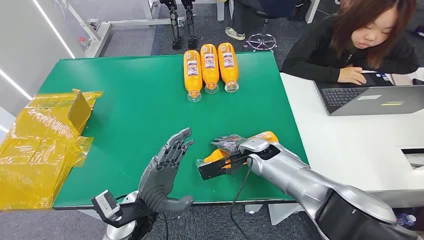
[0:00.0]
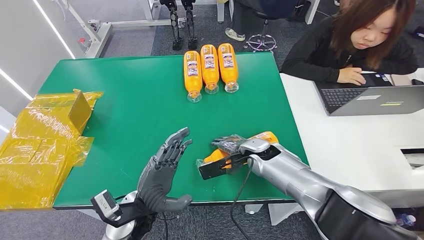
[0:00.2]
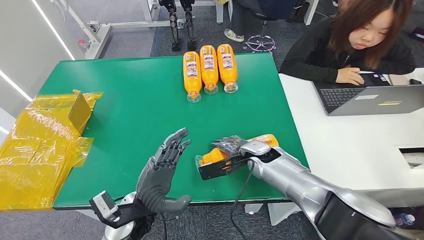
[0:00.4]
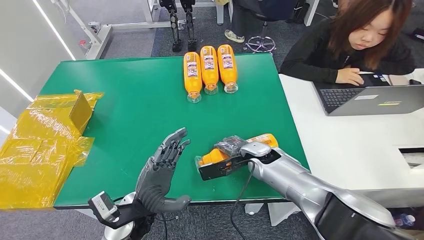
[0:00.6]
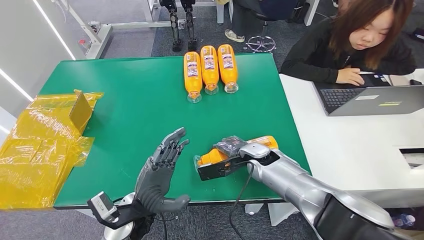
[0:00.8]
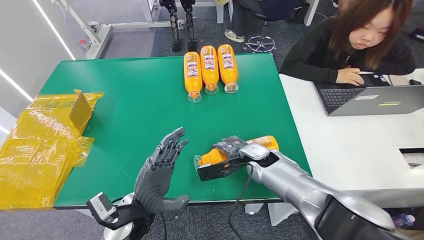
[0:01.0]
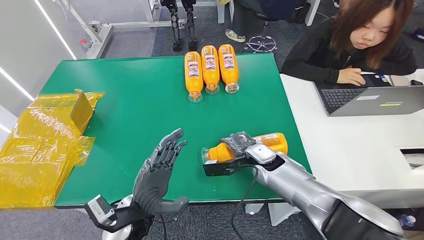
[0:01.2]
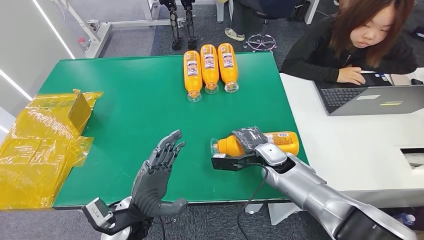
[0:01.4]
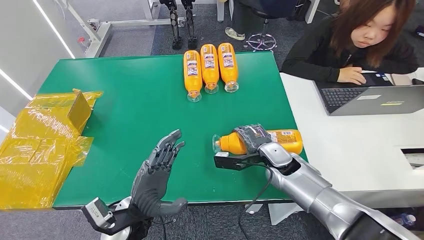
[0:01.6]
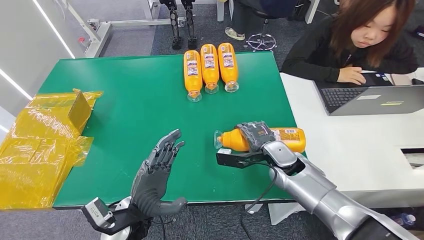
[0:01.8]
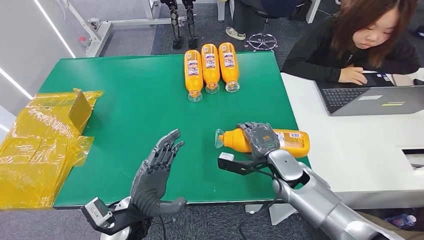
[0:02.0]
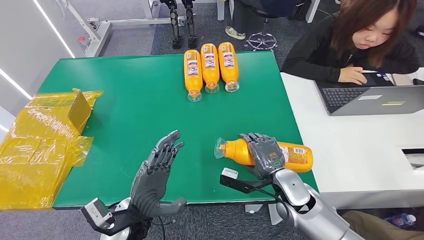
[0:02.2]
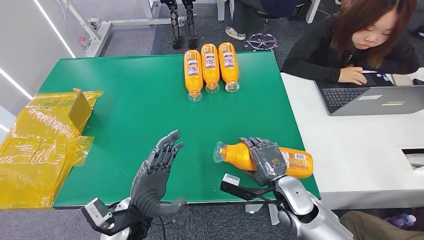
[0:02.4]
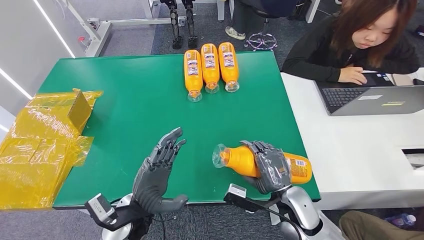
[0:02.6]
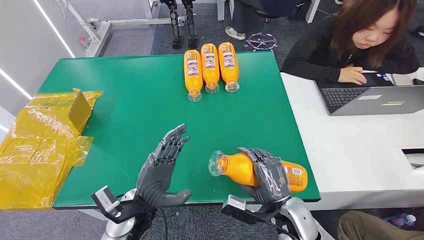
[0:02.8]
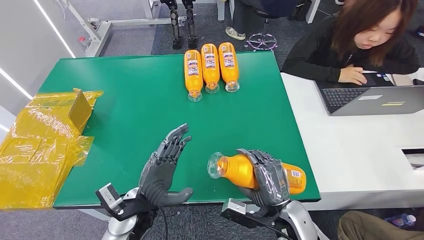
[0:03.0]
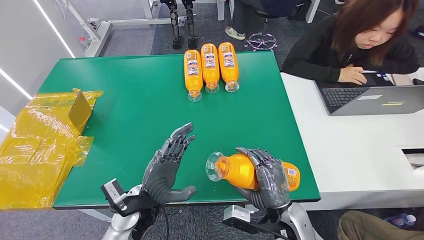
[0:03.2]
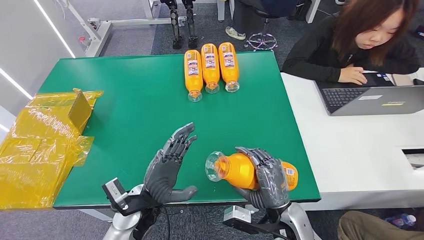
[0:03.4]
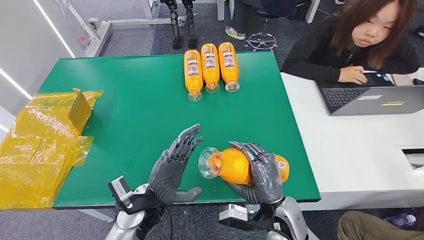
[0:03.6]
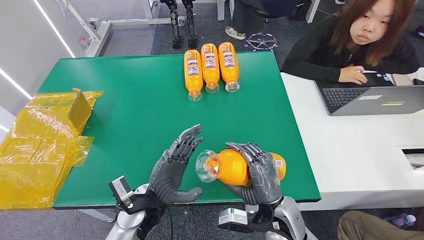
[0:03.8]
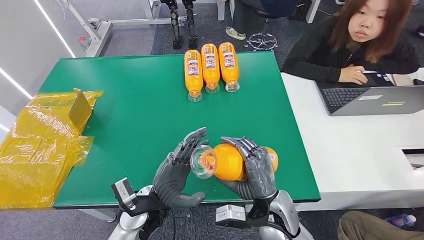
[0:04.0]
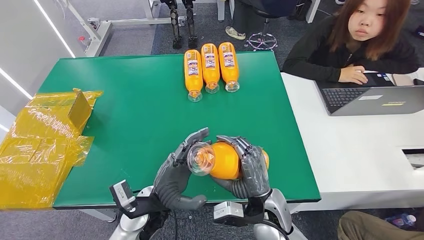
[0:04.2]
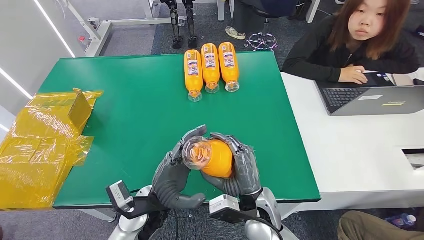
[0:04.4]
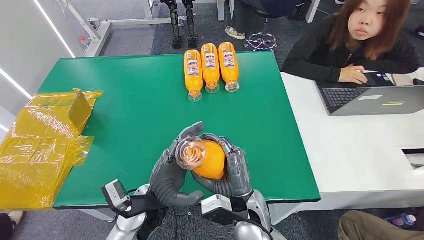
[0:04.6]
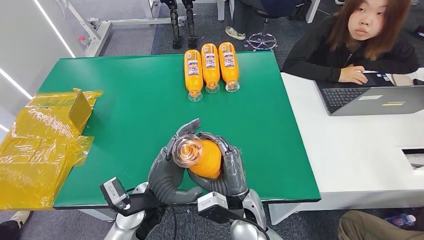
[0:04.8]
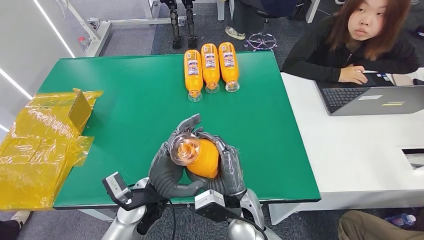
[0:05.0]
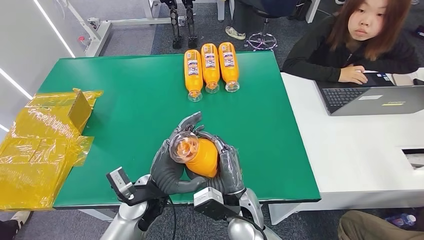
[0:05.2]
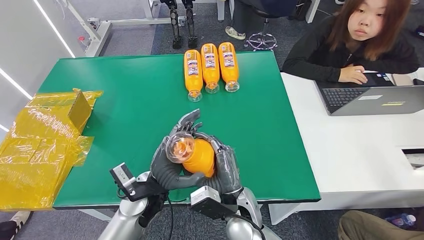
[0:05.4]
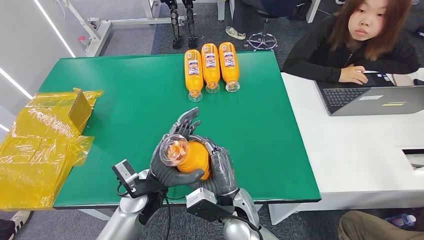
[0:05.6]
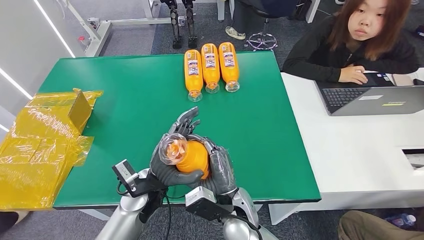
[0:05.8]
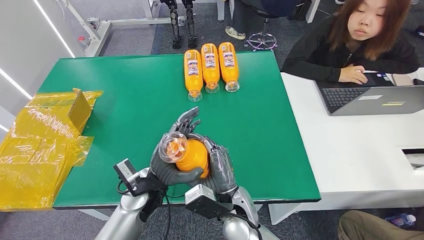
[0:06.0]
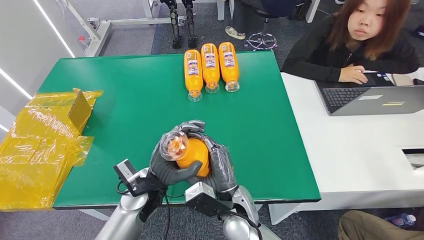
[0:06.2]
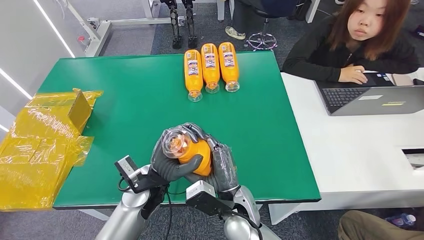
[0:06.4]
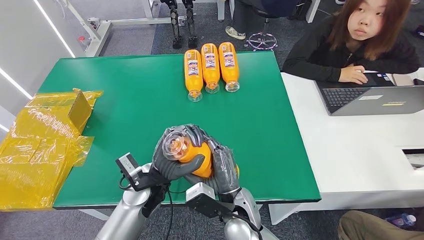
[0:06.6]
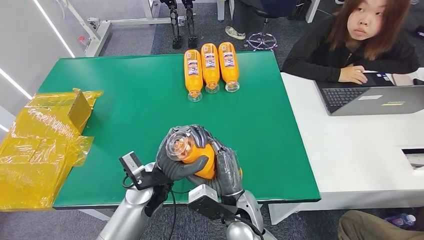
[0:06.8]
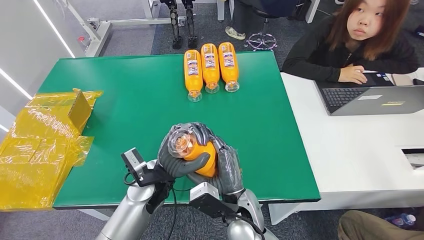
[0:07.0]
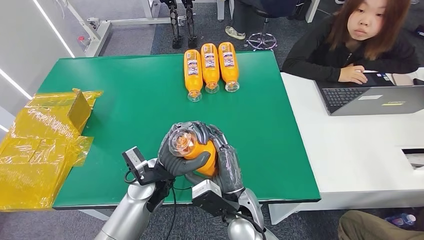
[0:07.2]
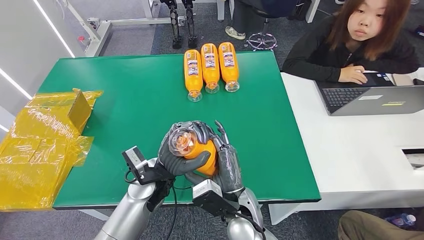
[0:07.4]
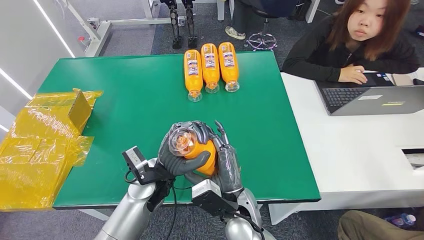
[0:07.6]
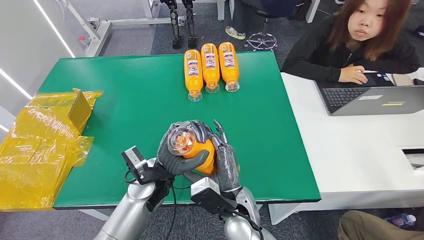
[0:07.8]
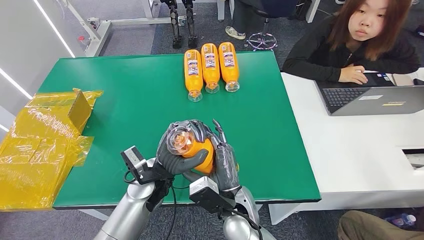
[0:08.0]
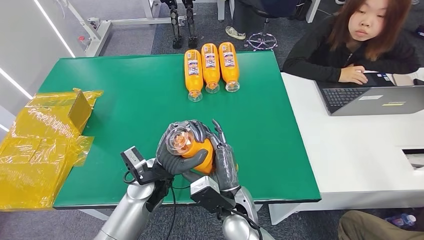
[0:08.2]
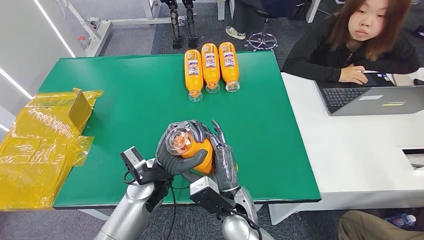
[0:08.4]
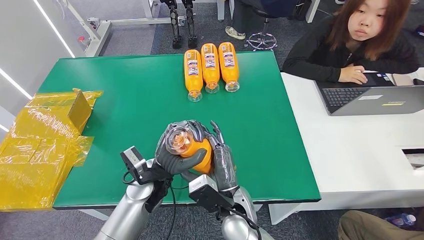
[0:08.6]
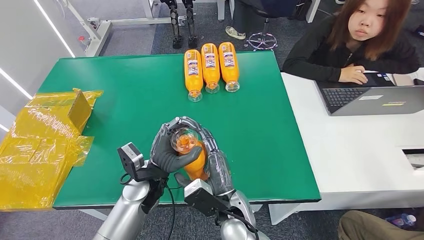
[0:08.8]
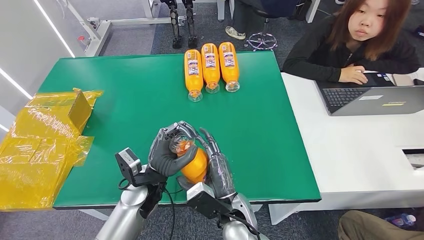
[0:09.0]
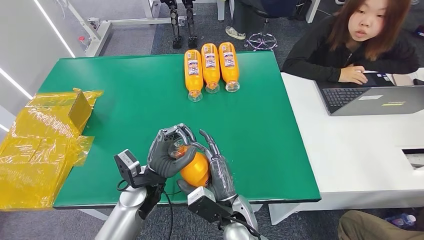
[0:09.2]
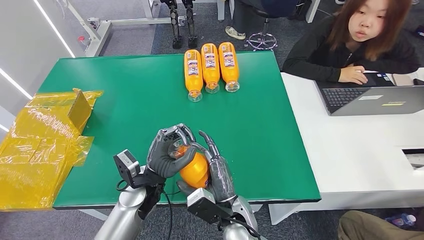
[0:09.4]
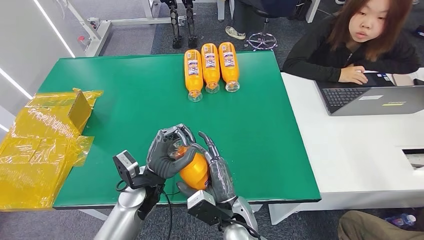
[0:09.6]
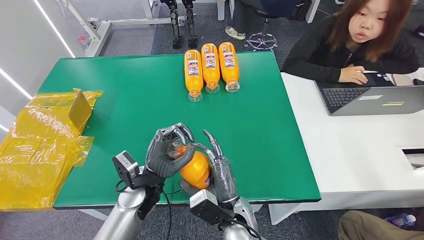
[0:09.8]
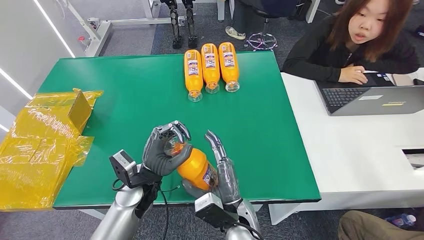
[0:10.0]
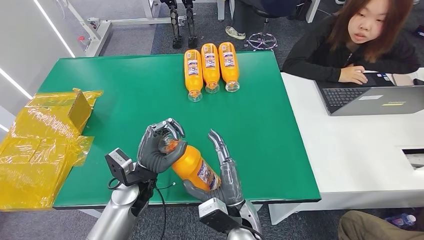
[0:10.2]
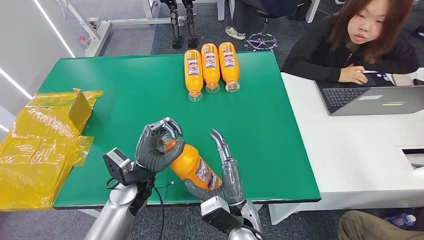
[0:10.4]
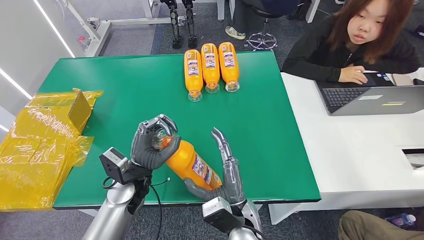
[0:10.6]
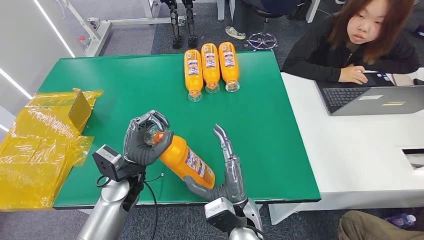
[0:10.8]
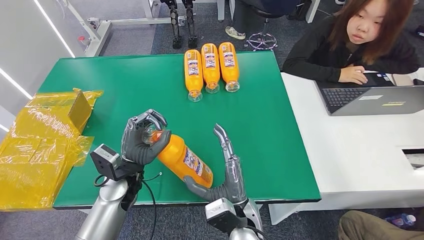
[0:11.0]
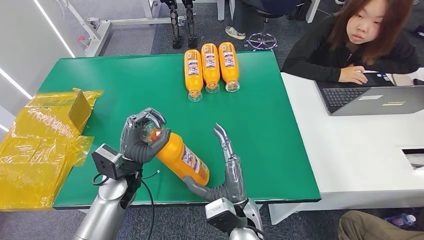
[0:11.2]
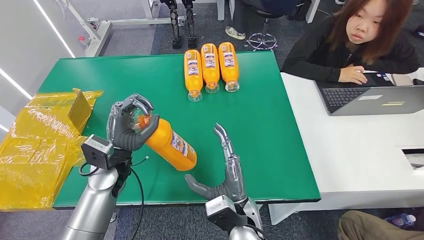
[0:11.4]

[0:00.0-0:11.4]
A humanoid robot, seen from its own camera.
Step, 0:00.0 to 0:04.6: Pick up the bottle from the table.
0:01.4 to 0:02.8: The right hand travels backward by approximately 15 cm.
0:02.8 to 0:04.2: The right hand is displaced to the left by approximately 5 cm.
0:04.2 to 0:05.6: The right hand moves to the left, about 10 cm.
0:05.6 to 0:07.2: The hands move only a little.
0:07.2 to 0:08.6: Both hands stay about where they are.
0:08.6 to 0:10.0: The hands move only a little.
0:10.0 to 0:11.4: The left hand heads to the left, covering approximately 5 cm.

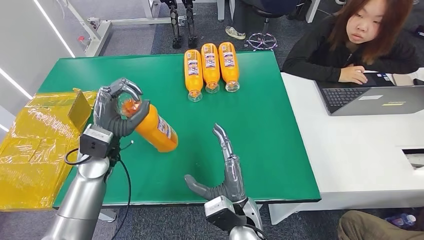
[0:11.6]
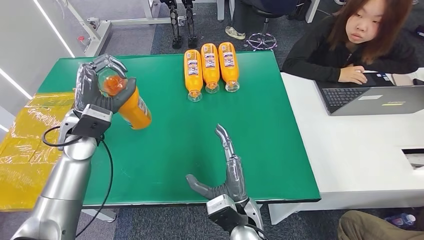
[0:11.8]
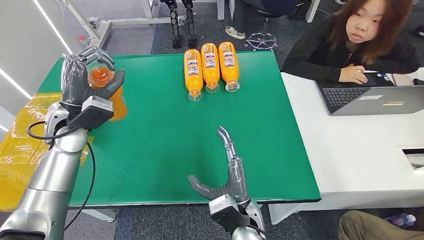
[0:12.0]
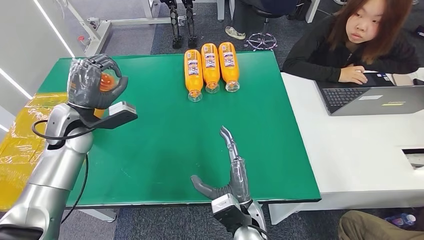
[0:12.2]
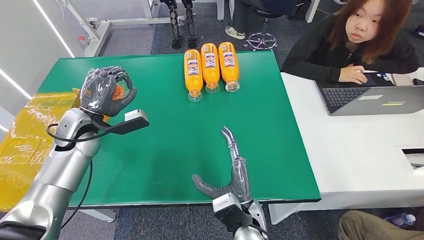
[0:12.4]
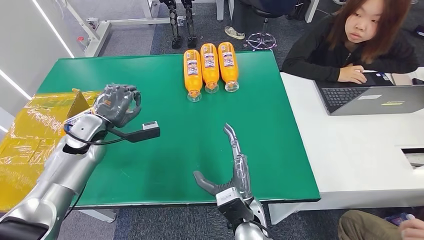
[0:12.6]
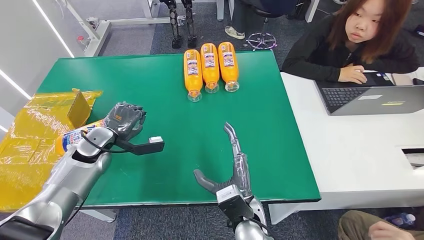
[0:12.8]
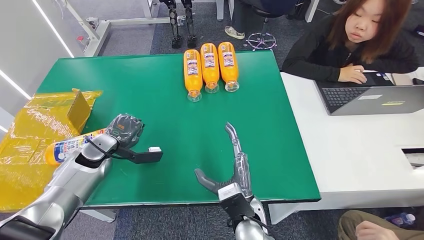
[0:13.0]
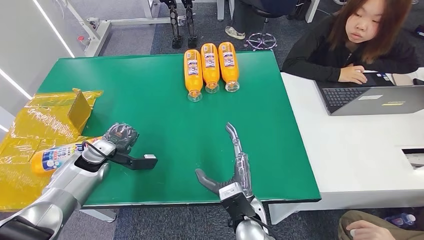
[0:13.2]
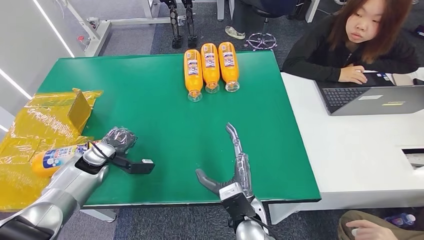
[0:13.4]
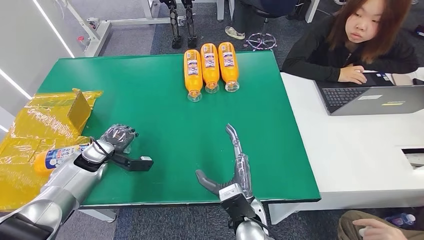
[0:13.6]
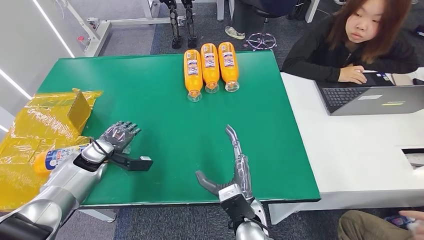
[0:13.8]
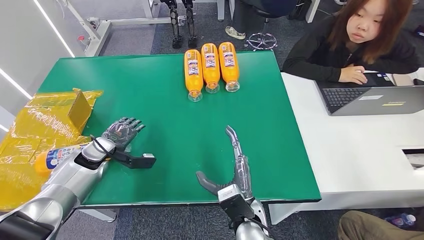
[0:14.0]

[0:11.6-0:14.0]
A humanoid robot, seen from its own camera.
Step, 0:11.6 to 0:14.0: Turn the bottle to the front side.
0:11.6 to 0:12.8: The left hand is displaced to the left by roughly 5 cm.

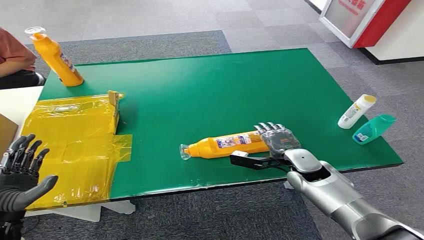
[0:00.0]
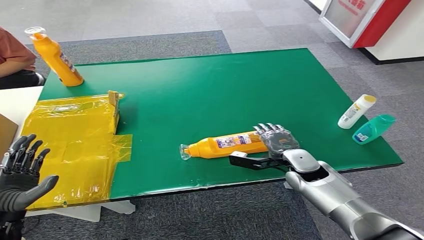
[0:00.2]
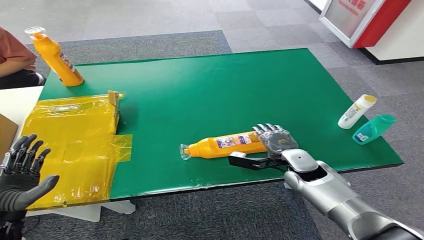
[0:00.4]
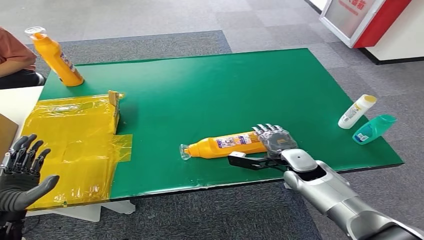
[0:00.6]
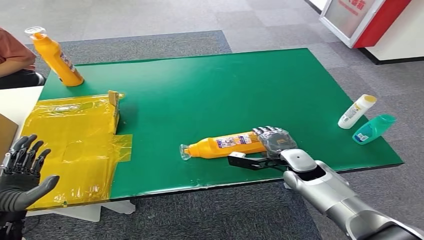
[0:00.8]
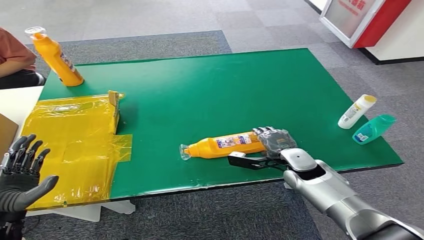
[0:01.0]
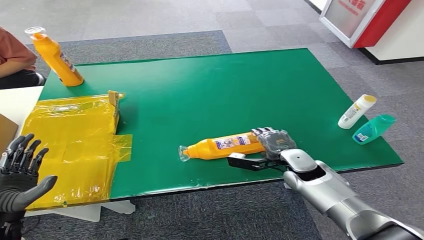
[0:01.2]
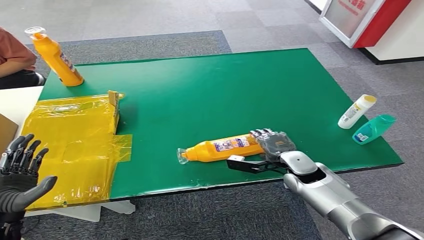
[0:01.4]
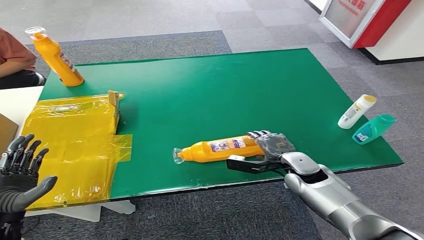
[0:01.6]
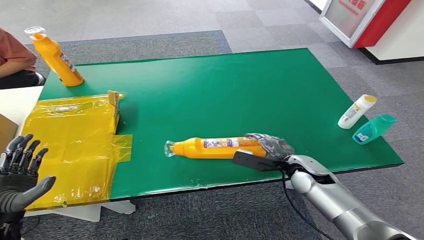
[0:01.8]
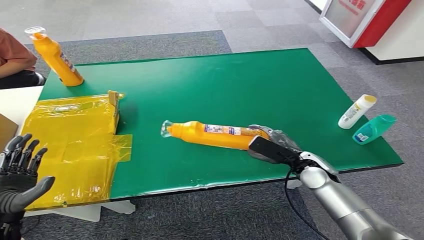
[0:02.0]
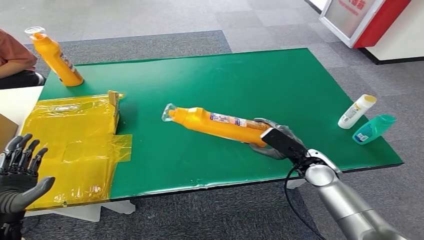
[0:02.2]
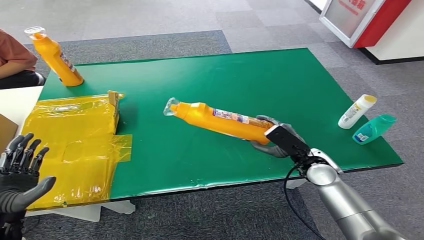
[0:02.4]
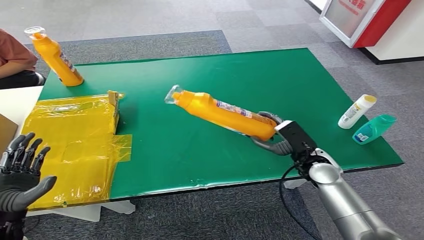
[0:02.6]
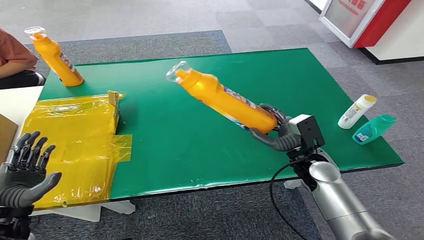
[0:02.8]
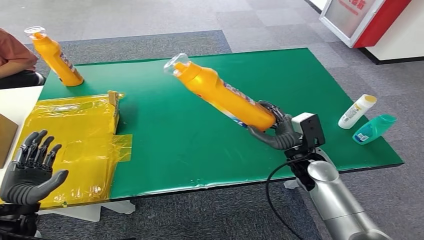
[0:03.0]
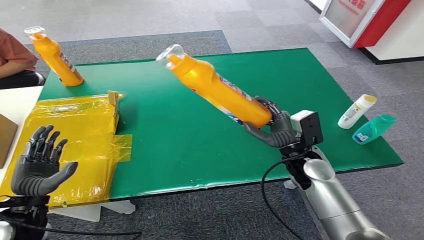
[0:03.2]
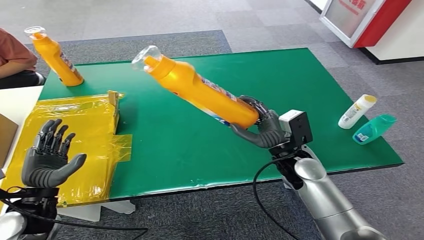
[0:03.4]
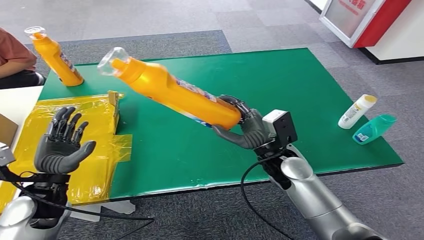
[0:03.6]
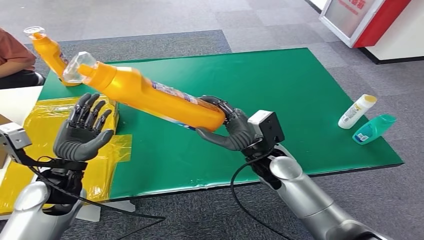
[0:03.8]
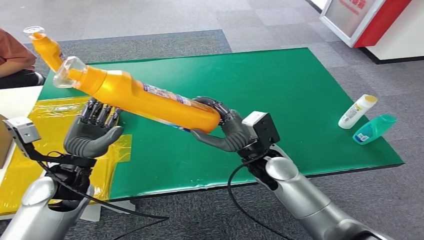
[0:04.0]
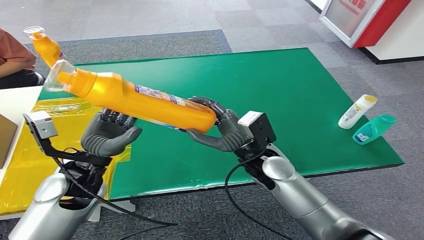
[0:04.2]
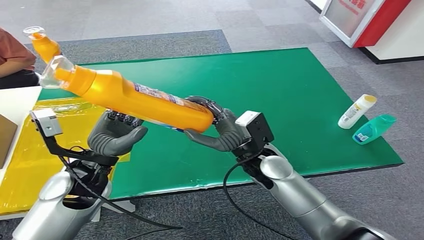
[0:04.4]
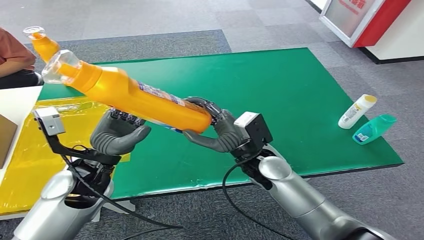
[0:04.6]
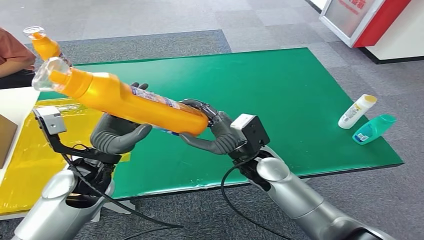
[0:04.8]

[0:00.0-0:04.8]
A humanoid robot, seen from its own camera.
Step, 0:00.0 to 0:03.8: Pick up the bottle from the table.
0:01.6 to 0:03.2: The right hand heads upward, covering about 5 cm.
